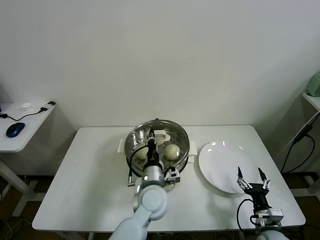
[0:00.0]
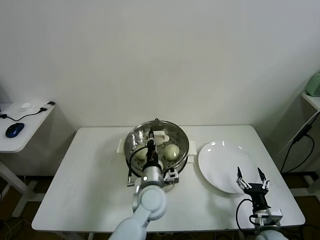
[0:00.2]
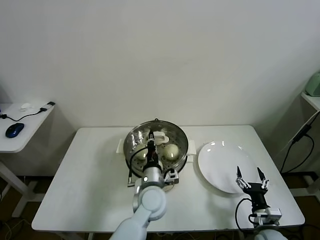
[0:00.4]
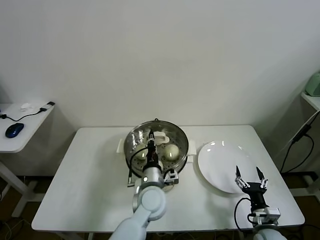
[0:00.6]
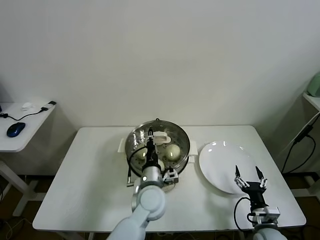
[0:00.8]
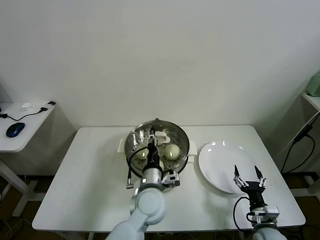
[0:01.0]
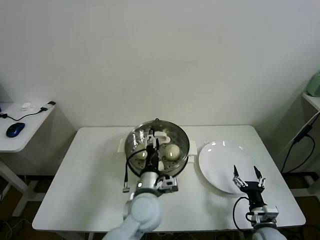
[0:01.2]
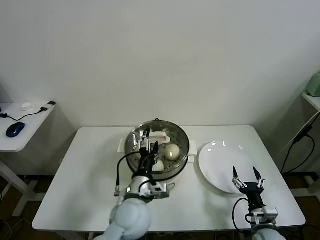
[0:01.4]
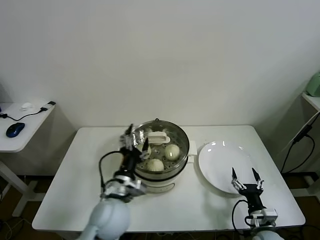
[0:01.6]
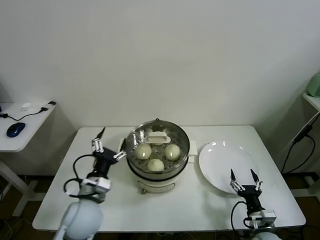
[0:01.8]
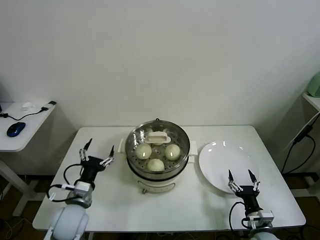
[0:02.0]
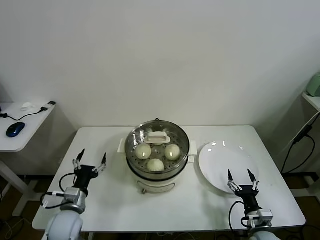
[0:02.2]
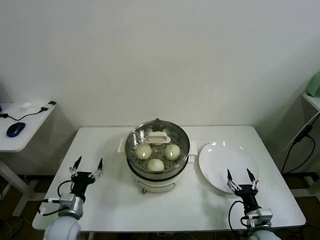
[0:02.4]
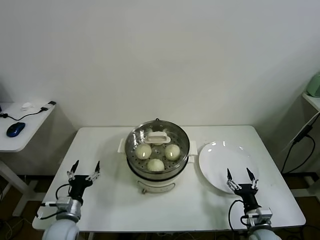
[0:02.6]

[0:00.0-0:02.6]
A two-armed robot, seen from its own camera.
Task of the whole recording: take steamed baozi put them in steamer.
0:00.0 to 0:01.2: The left gripper opens.
0:01.2 to 0:02.6: The left gripper moves to the left and downward, some 30 cm.
